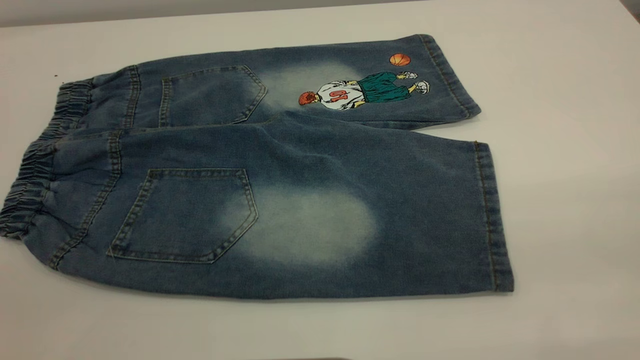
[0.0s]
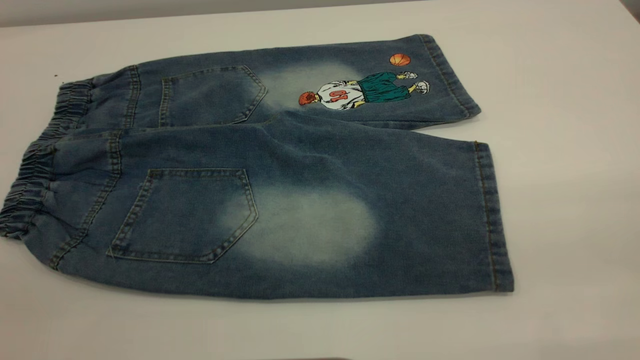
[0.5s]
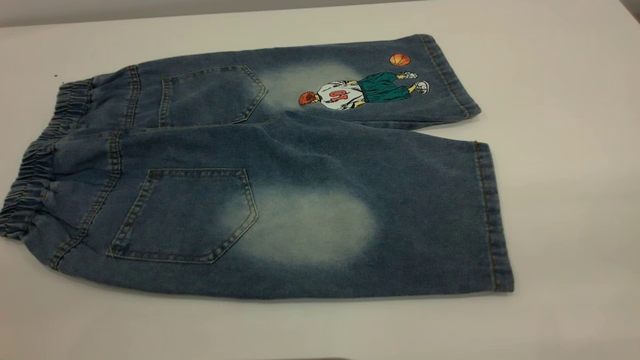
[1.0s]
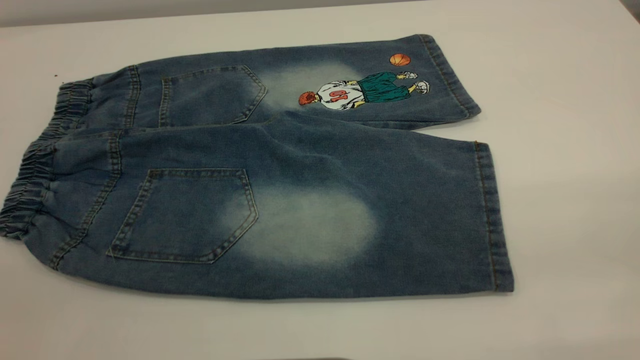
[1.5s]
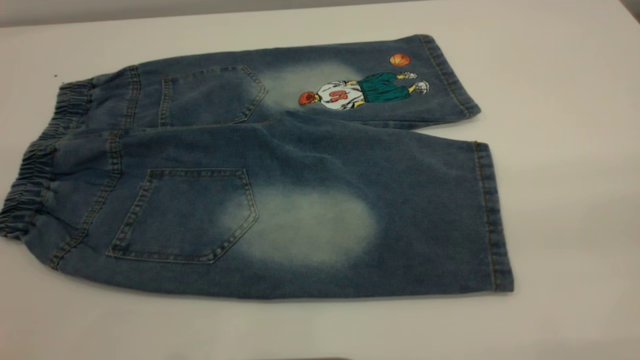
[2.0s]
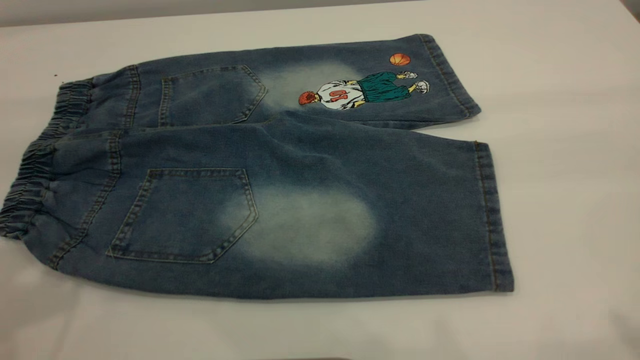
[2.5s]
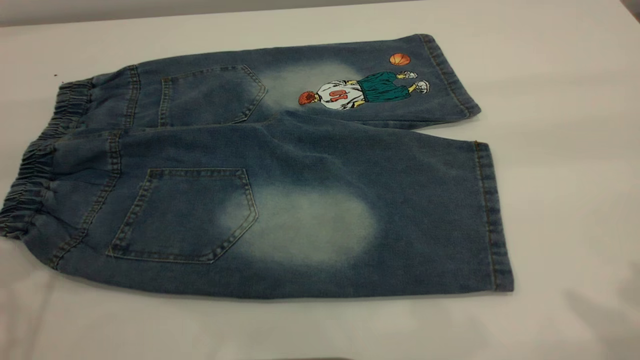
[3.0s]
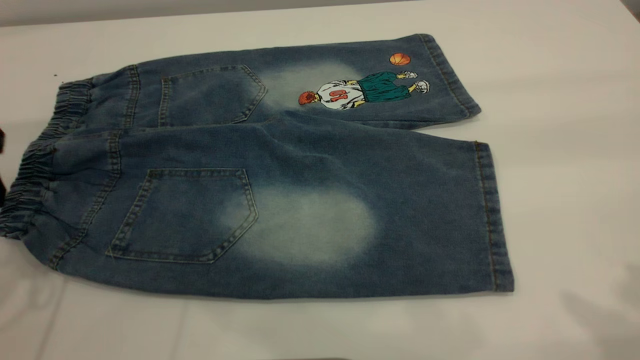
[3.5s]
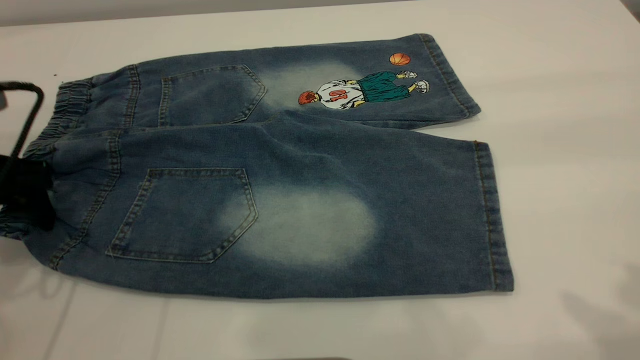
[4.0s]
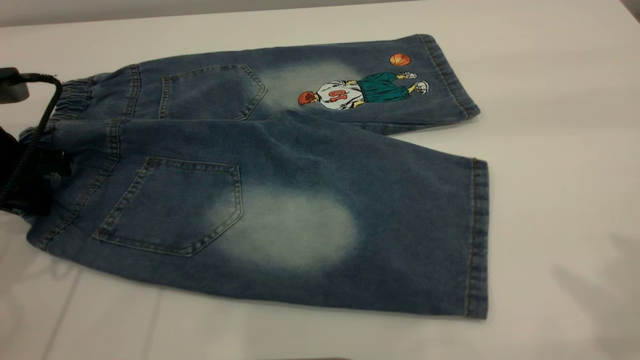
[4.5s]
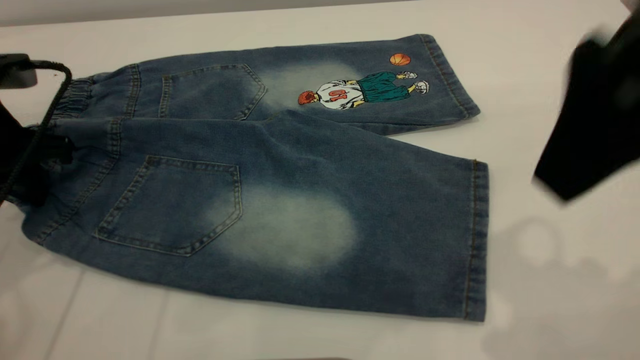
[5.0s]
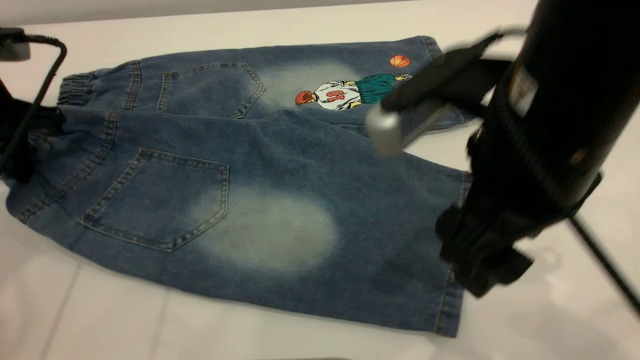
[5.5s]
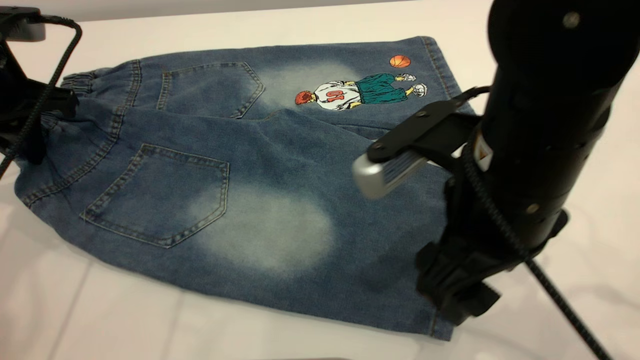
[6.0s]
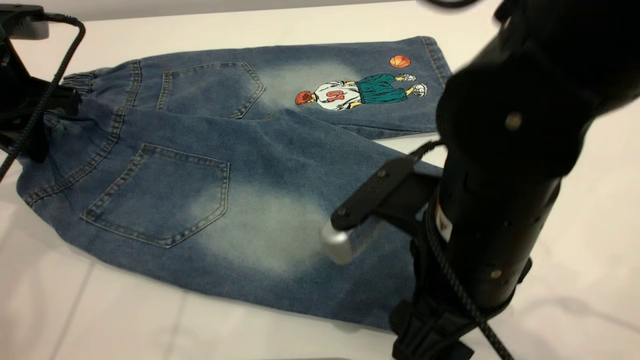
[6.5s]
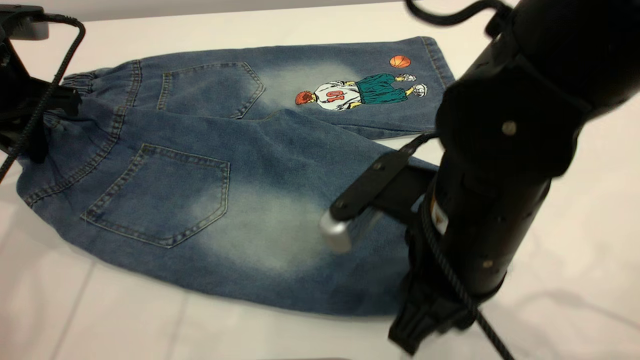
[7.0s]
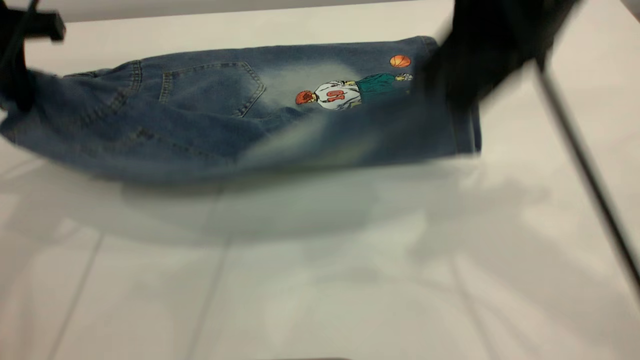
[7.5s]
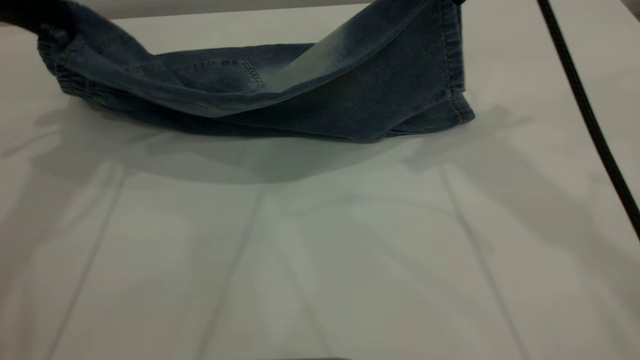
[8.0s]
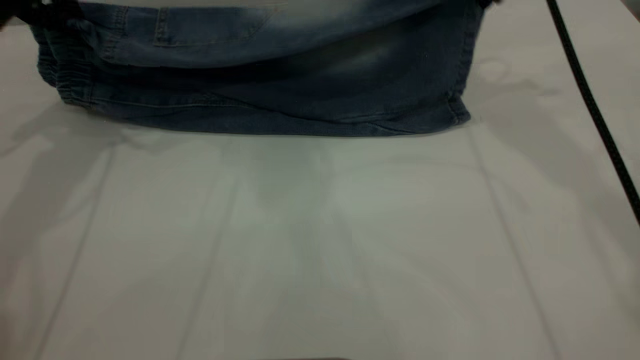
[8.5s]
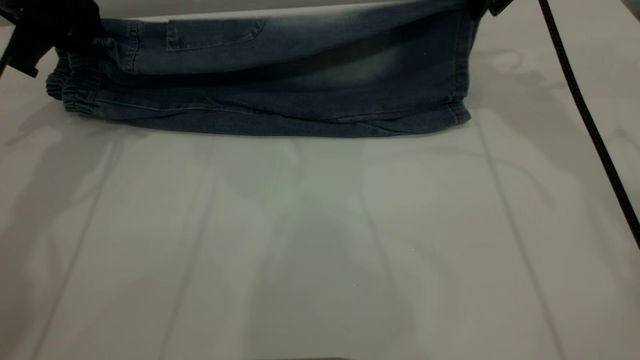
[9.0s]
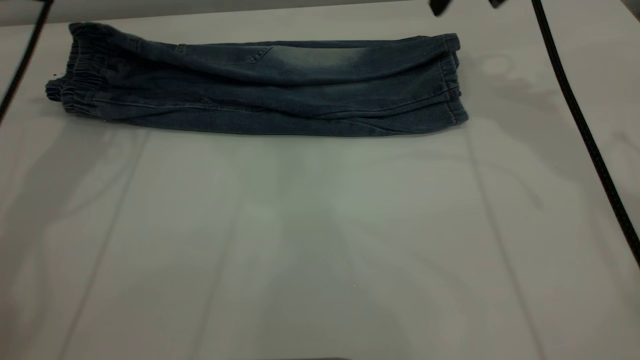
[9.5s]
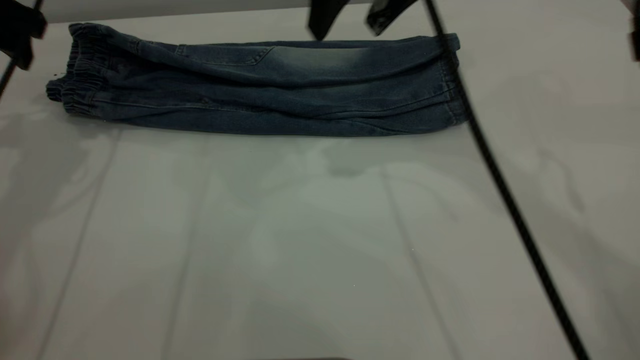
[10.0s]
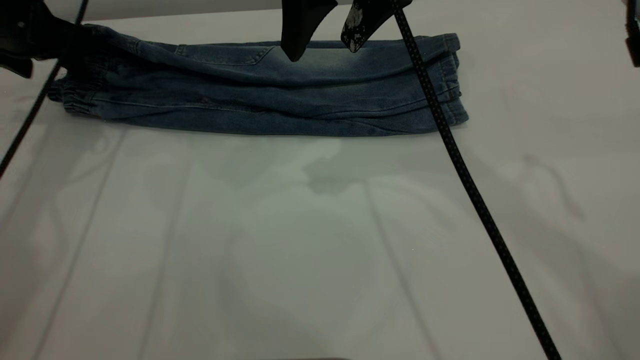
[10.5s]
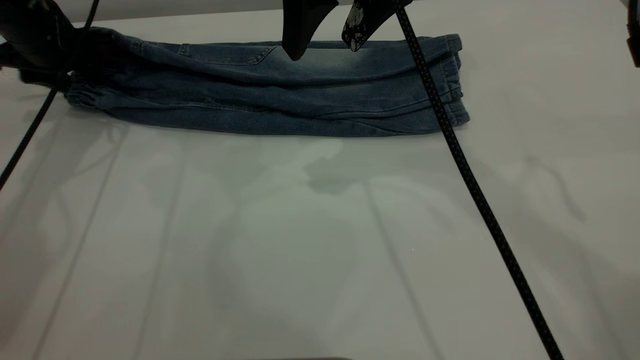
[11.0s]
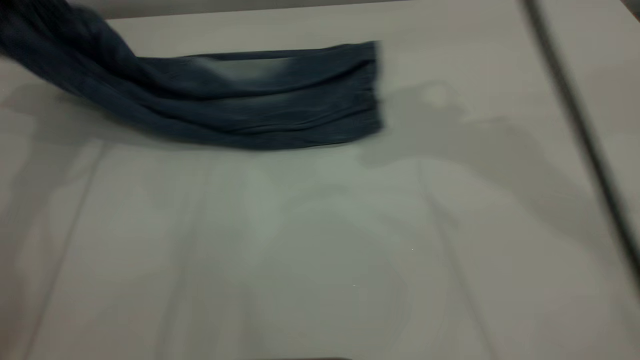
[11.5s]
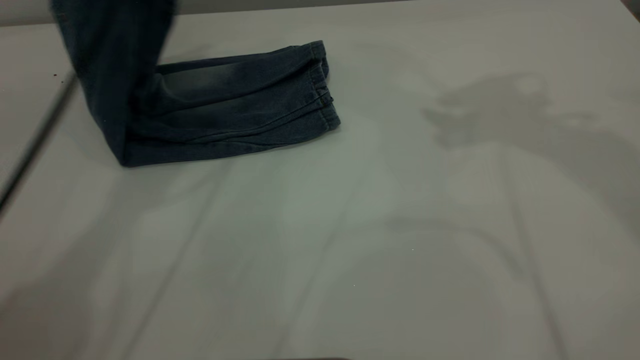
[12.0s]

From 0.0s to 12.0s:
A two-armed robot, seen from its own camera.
Step, from 0.0s to 9.5s: Fold the bottom of the pants upward.
From 2.0s to 4.0s: The left gripper moves downward and forward, some 30 cm.
From 4.0s to 6.0s: The right gripper shifts some 25 cm downward and to the left, while the left gripper goes roughly 5 cm forward, and closes up.
From 6.0s to 8.0s: The right gripper goes about 20 cm forward and upward, and closes its fingers. The left gripper moves upward and forward, some 10 cm.
From 8.0s to 10.0s: The right gripper moves to the left, roughly 5 cm, and opens up; the left gripper shifts about 5 cm downward, and opens.
From 10.0s to 12.0s: The right gripper heads upward and to the right, covering about 20 cm, while the left gripper goes some 20 cm to the right and upward, and closes up.

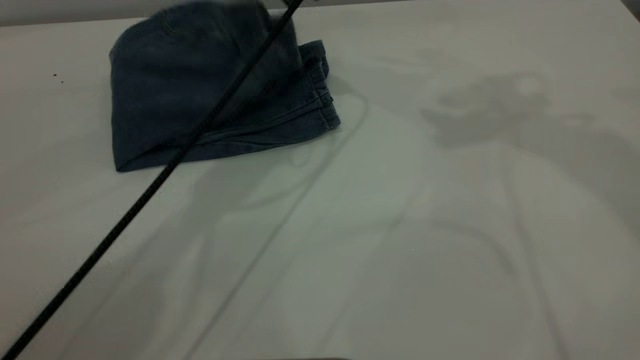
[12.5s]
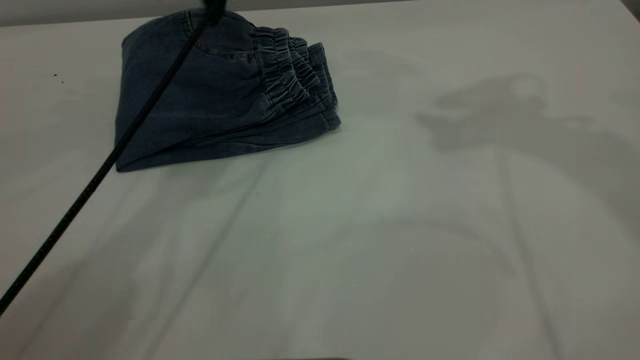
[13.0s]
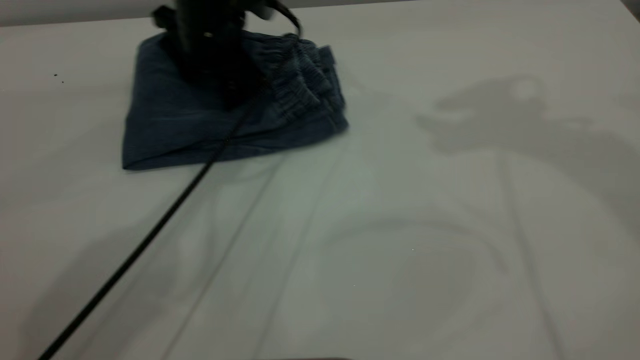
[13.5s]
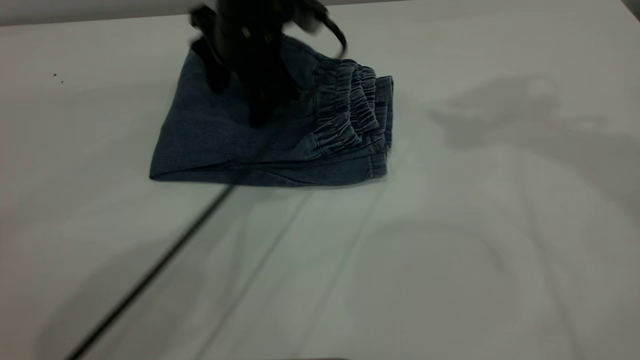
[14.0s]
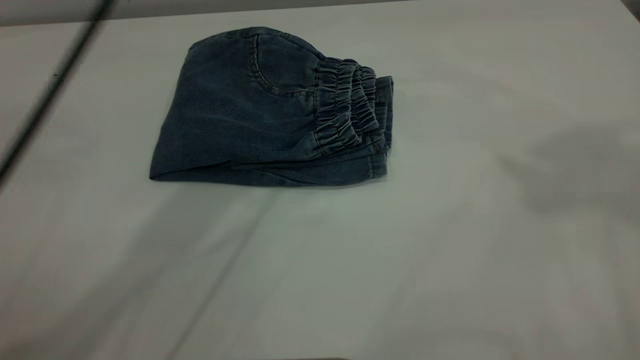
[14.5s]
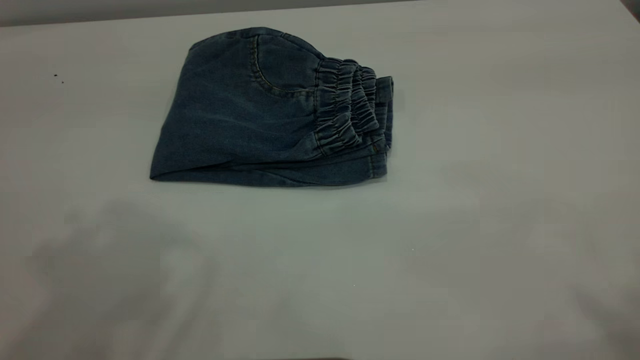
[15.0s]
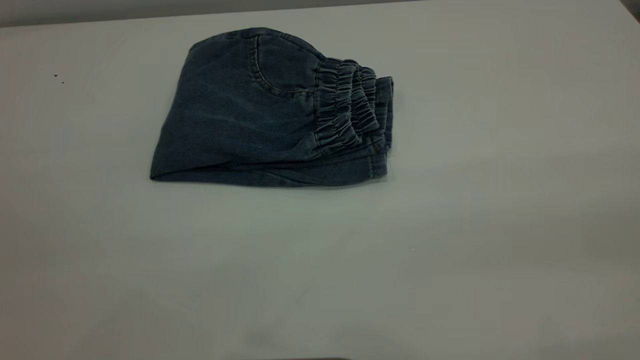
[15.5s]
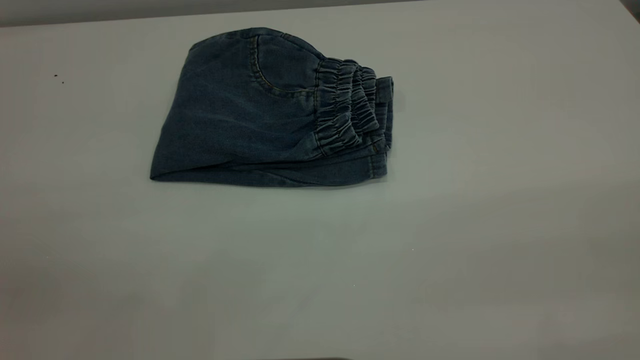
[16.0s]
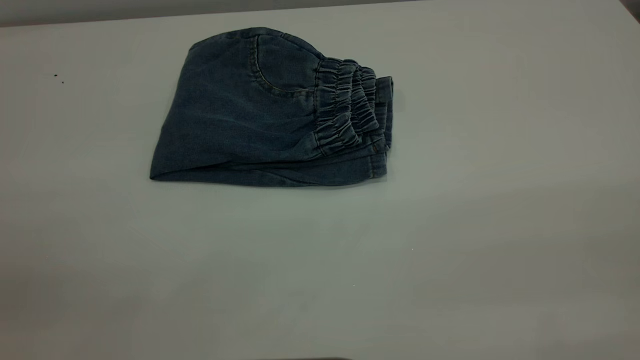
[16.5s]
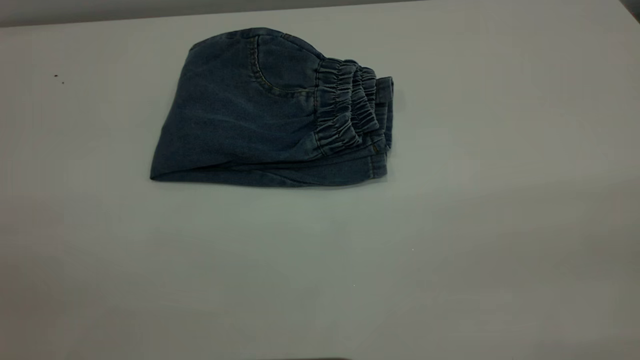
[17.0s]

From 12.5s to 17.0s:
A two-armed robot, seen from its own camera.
From 12.5s to 14.5s: The right gripper is displaced backward and upward by approximately 15 cm, while the left gripper travels upward and backward by some 15 cm, and opens.
From 14.5s to 17.0s: The left gripper heads backward and to the left, covering about 40 cm.
